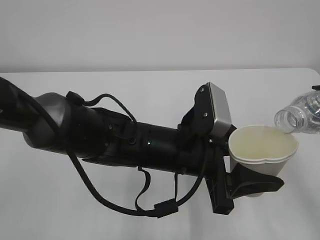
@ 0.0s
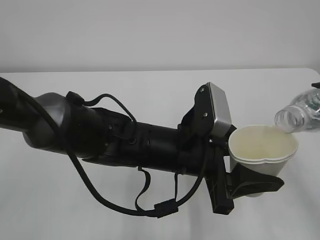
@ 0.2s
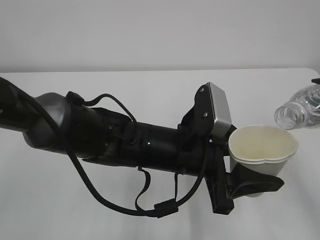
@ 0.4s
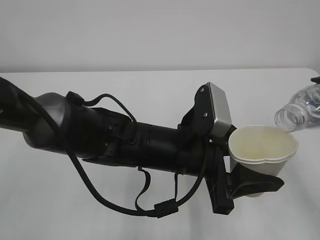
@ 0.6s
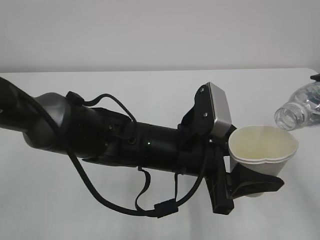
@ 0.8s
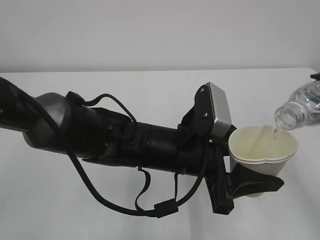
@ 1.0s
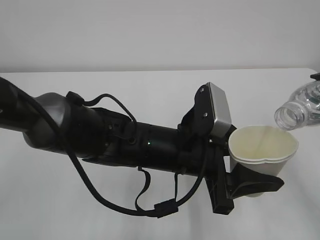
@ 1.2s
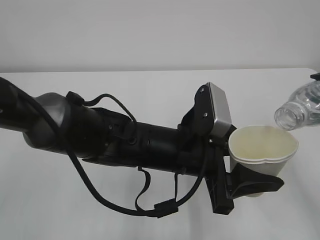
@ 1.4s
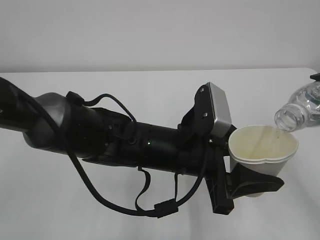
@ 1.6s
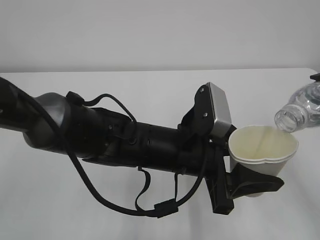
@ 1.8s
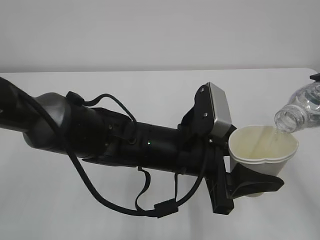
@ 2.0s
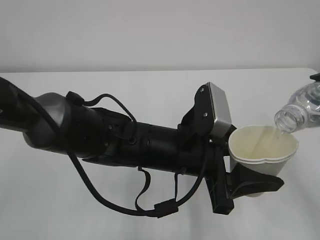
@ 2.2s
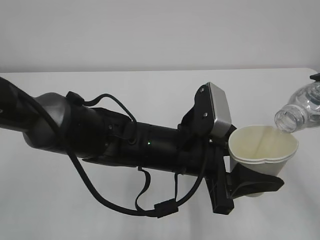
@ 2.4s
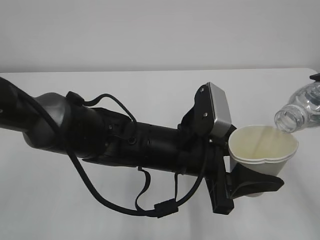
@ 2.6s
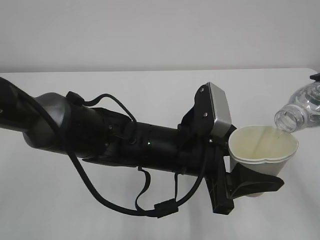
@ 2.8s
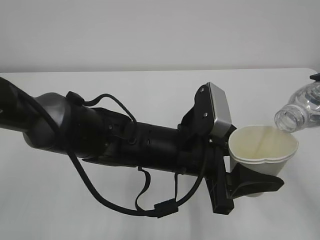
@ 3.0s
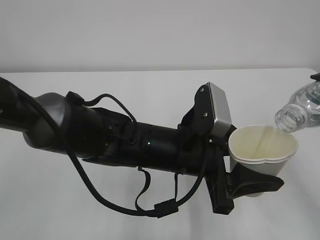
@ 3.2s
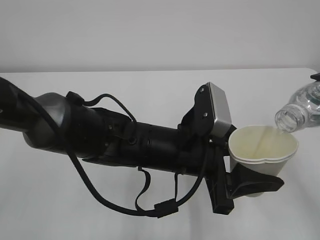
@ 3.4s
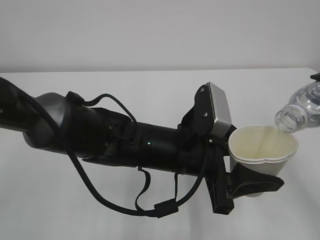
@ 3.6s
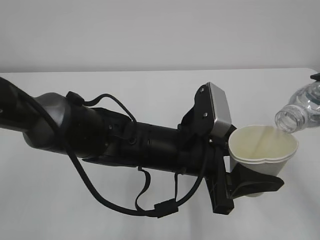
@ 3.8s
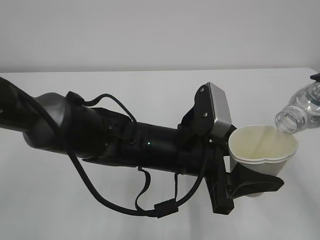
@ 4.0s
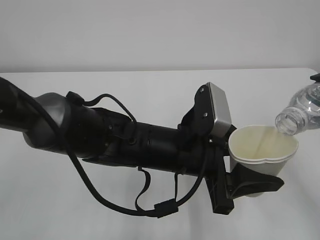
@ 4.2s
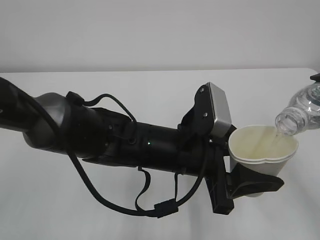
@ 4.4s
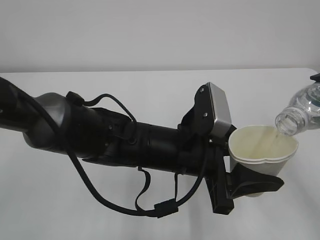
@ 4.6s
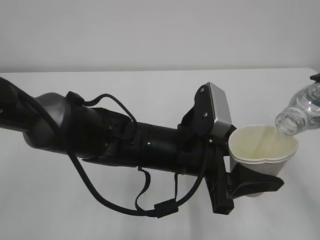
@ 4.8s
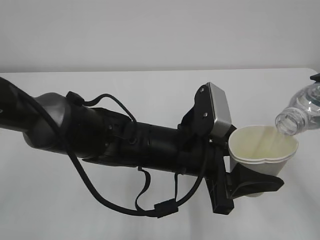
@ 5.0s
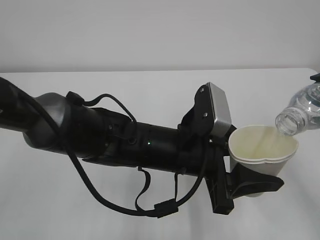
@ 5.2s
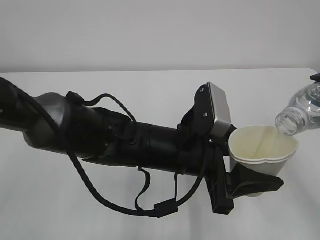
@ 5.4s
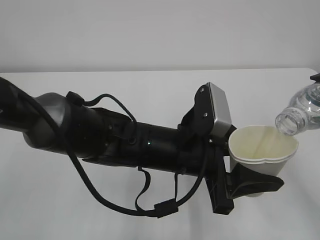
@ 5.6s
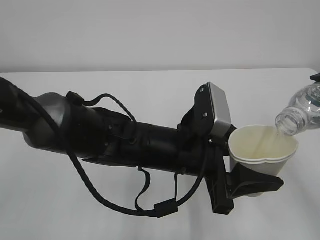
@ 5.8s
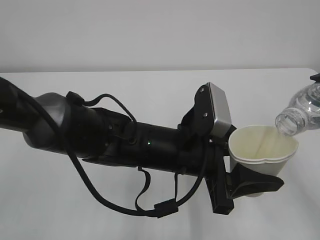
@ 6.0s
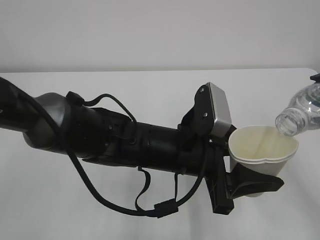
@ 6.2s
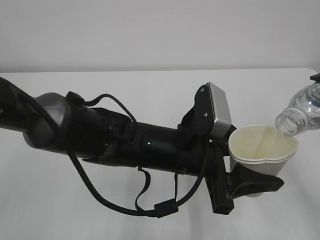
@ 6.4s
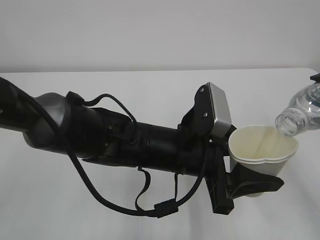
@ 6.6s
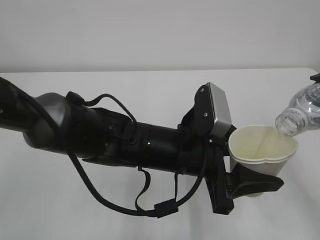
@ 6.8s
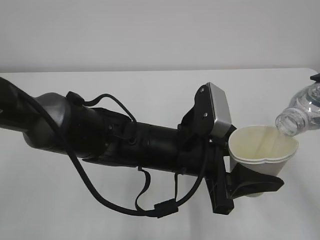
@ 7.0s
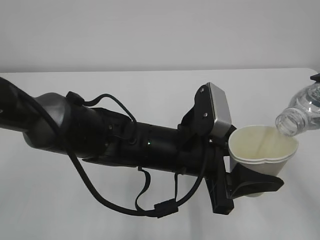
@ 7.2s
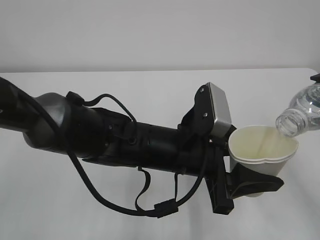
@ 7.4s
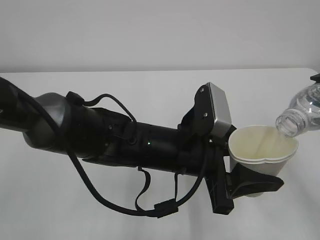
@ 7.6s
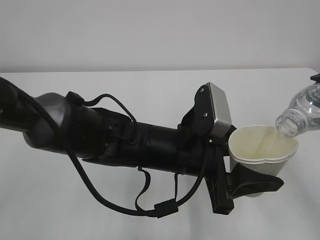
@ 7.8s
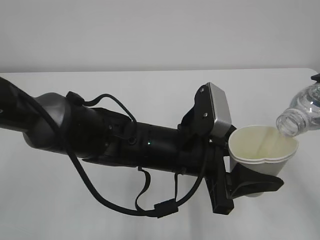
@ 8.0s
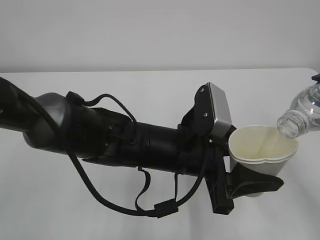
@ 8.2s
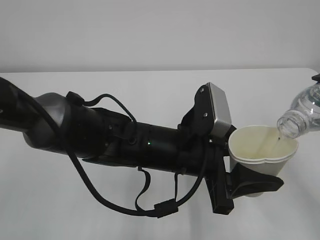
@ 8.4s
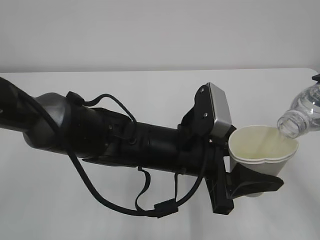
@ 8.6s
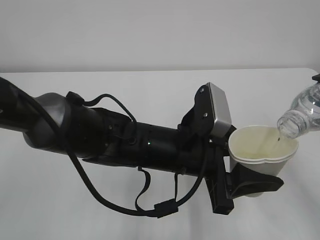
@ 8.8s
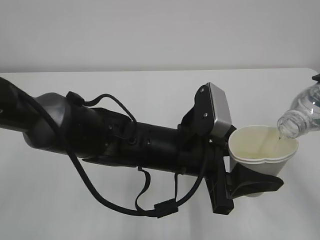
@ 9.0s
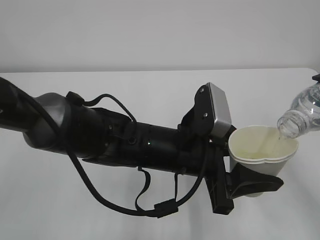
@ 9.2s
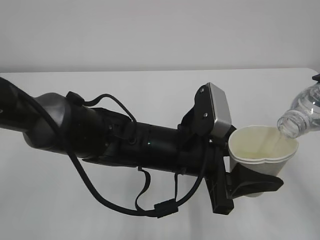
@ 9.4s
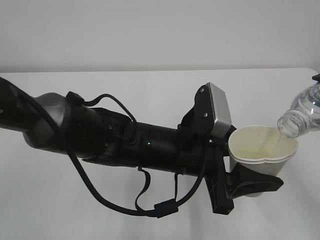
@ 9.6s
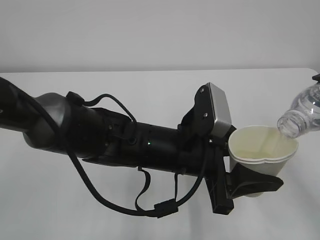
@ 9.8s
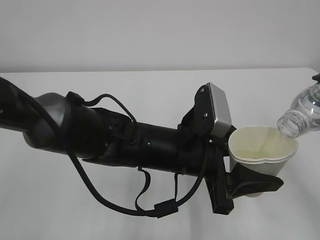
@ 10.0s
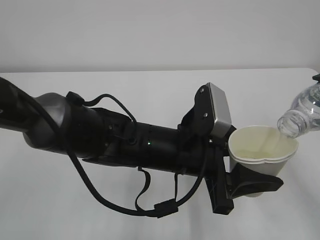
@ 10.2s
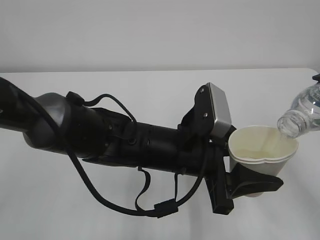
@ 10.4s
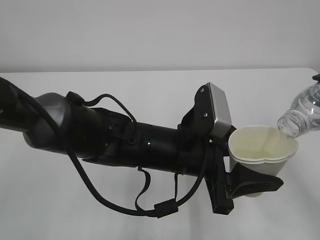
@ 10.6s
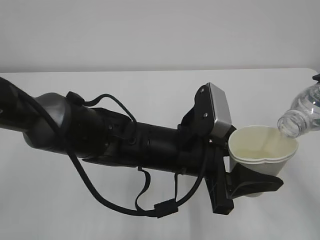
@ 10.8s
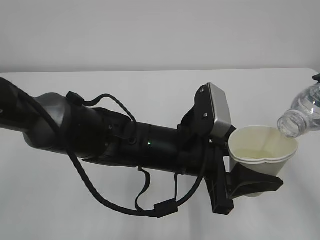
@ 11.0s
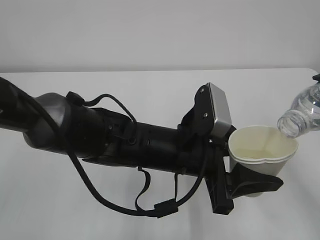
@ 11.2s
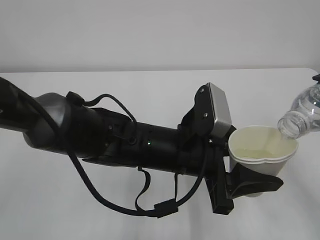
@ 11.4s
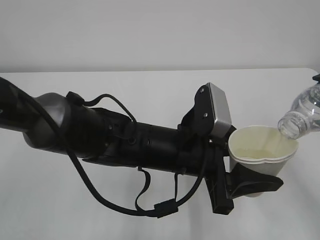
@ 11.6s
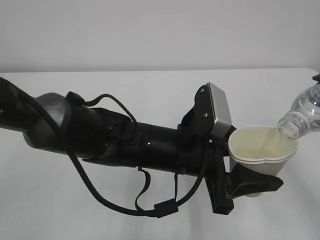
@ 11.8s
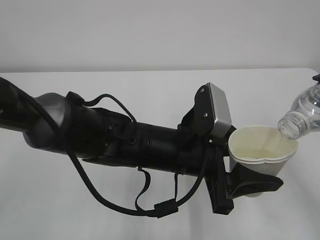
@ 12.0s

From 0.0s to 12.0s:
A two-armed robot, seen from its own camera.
From 0.0s to 1.6s: The grippers move only a little.
From 1.6s to 7.6s: Both grippers stay put.
From 7.6s to 12.0s: Both grippers stay put.

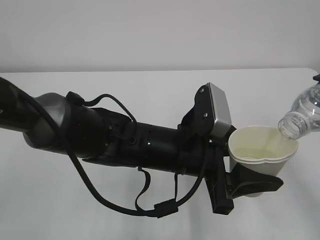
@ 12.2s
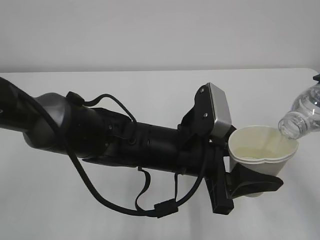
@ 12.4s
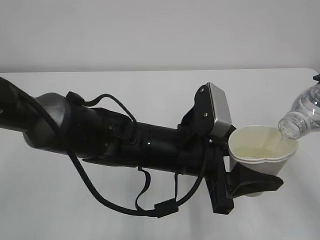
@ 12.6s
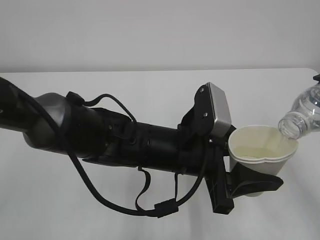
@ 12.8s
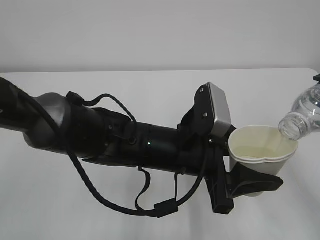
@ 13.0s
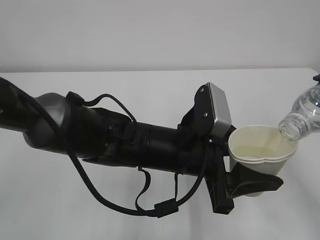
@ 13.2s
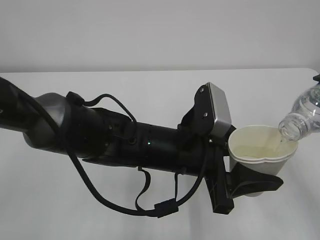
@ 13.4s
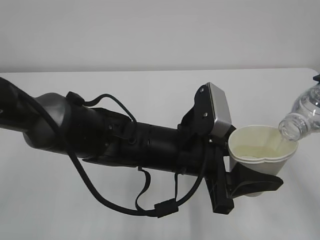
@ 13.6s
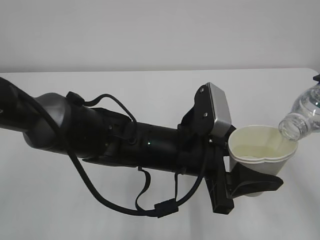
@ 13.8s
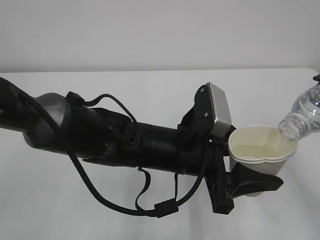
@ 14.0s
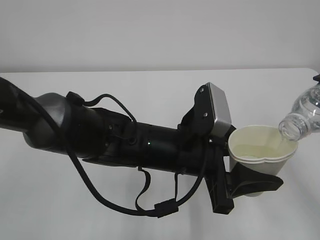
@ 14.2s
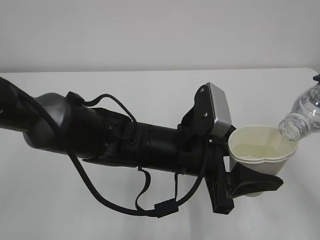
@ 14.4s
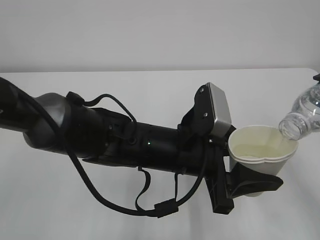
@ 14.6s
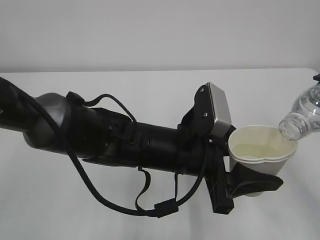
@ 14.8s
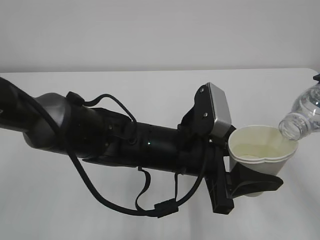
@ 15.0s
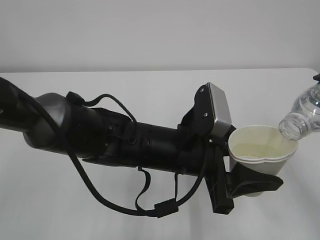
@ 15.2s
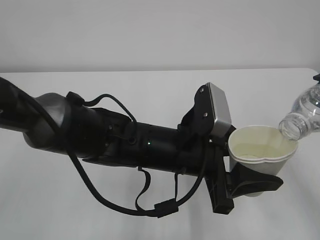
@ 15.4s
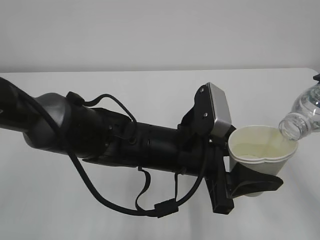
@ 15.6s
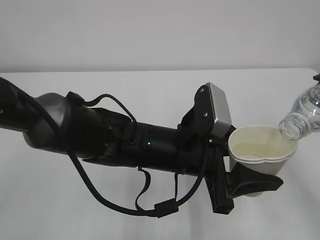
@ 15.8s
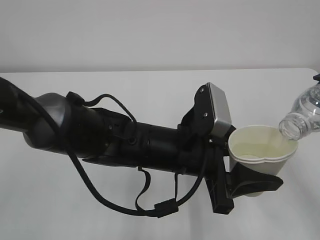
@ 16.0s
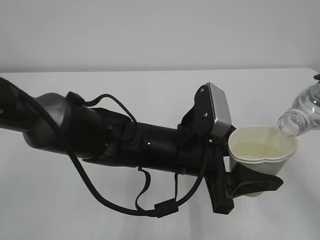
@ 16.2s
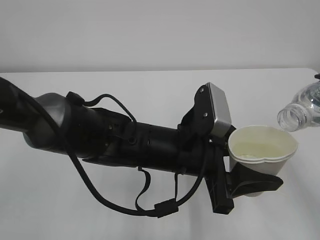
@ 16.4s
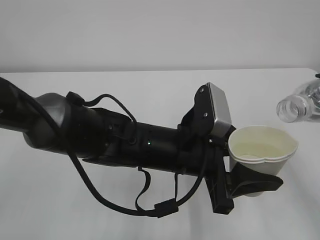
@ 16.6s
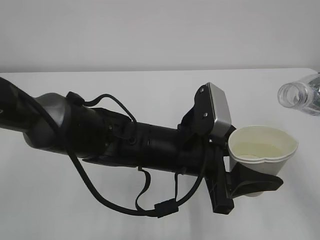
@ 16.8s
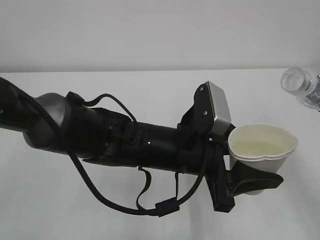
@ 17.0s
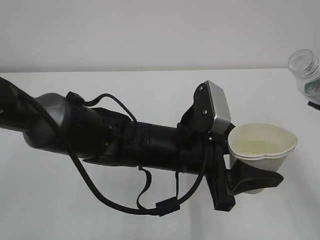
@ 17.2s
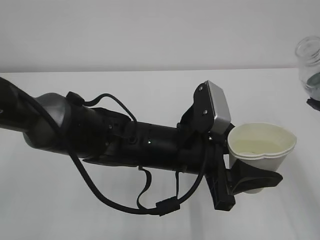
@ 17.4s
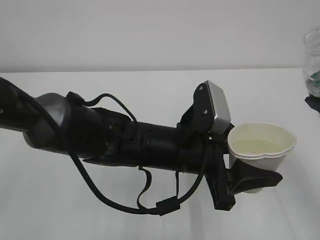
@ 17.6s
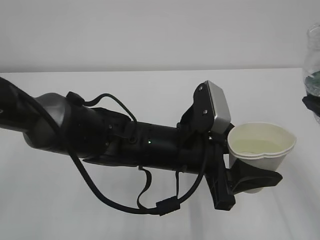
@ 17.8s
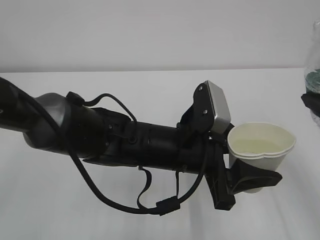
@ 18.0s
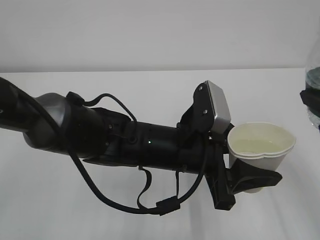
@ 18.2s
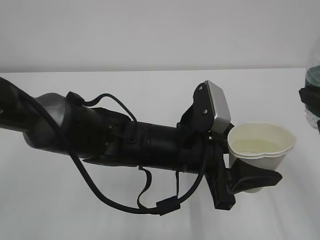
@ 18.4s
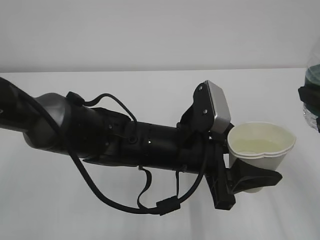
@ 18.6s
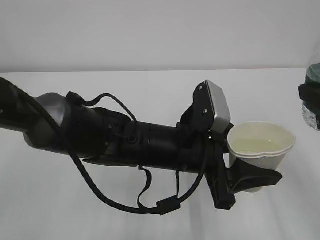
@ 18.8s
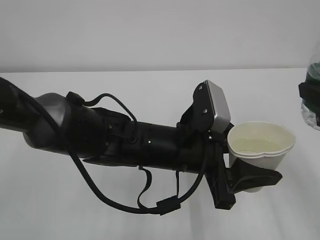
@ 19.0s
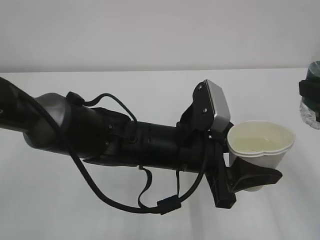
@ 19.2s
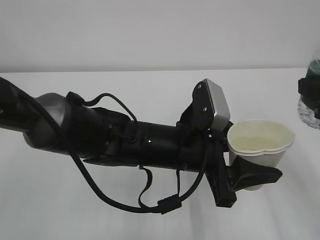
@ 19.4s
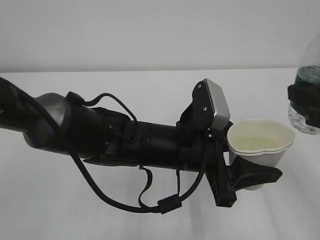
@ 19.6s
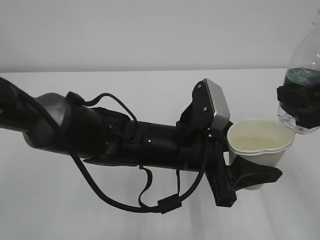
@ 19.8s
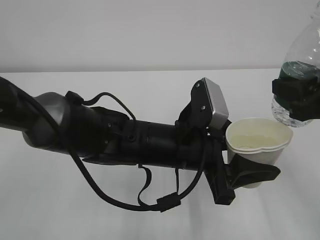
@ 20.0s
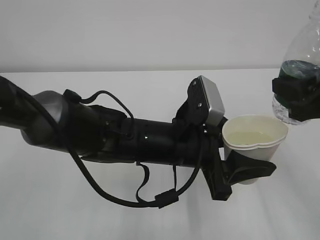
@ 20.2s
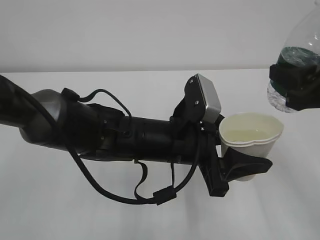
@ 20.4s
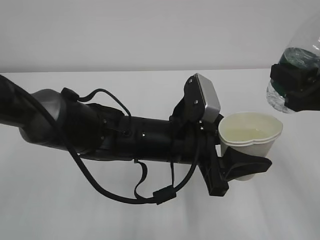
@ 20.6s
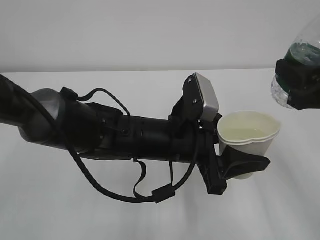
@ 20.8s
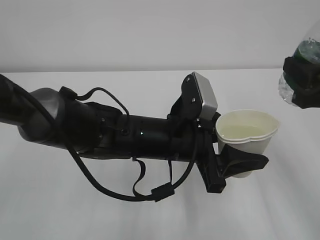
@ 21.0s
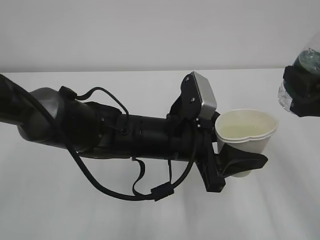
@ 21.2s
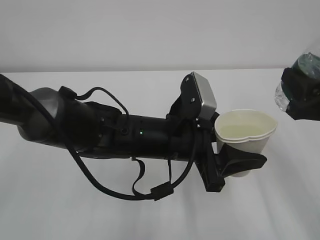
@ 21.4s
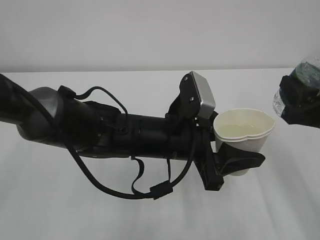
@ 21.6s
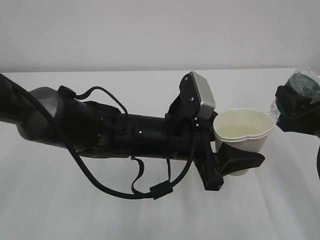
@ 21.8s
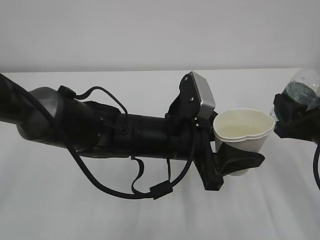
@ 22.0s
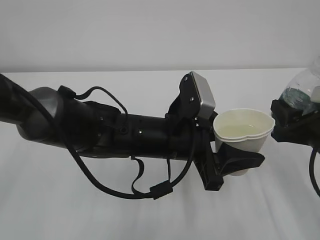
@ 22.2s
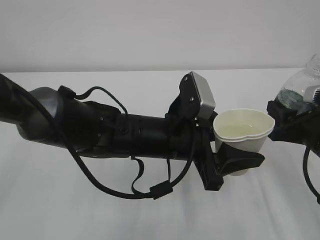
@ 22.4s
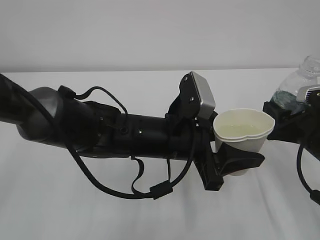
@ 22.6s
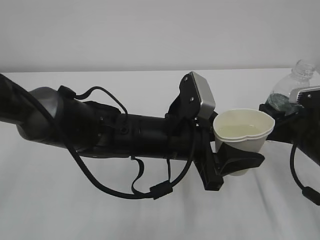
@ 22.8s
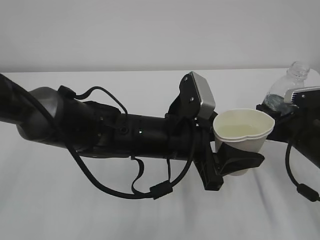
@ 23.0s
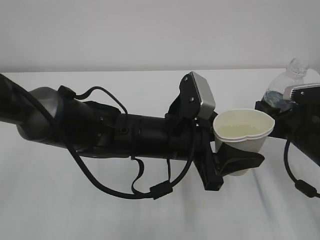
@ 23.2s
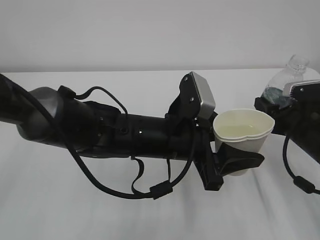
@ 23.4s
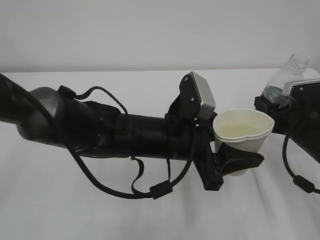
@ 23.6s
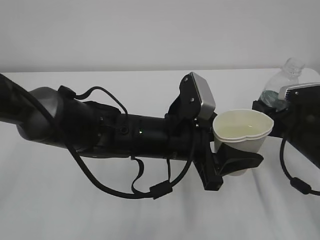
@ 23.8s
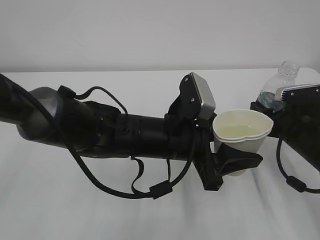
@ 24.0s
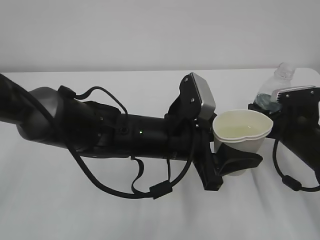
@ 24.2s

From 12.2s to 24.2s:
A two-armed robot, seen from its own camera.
From 12.2s to 15.2s: Both grippers stay put.
From 15.2s to 16.6s: There are only small adjustments of the grippers.
From 18.2s to 19.8s: The grippers stay close to where they were, moving slightly.
From 19.8s to 21.2s: The grippers make only small movements.
From 21.2s to 22.6s: The right gripper shifts approximately 10 cm downward.
From 22.6s to 24.2s: The right gripper moves forward, approximately 5 cm.
